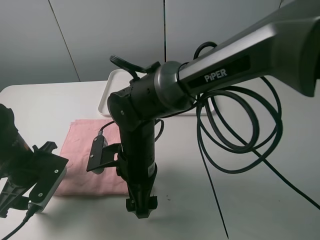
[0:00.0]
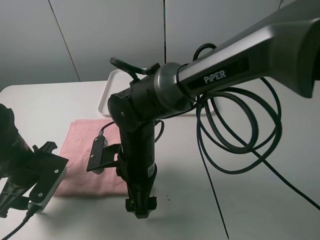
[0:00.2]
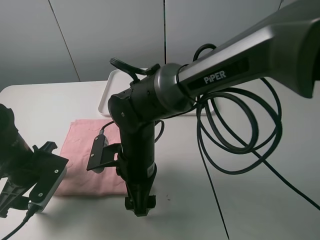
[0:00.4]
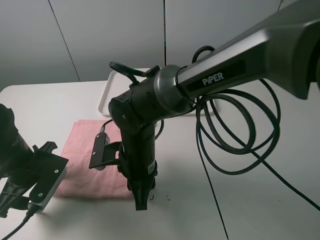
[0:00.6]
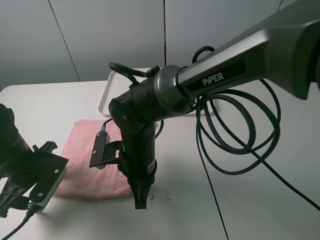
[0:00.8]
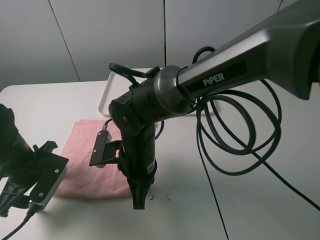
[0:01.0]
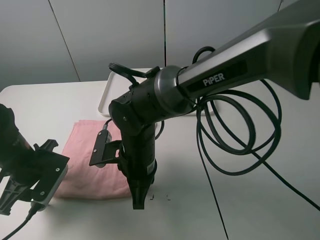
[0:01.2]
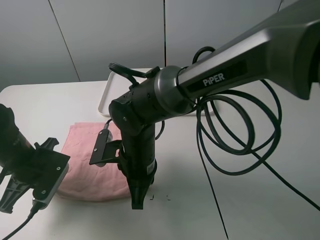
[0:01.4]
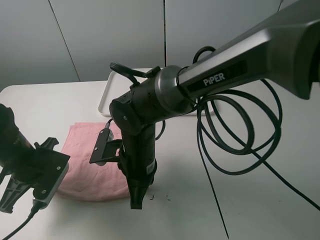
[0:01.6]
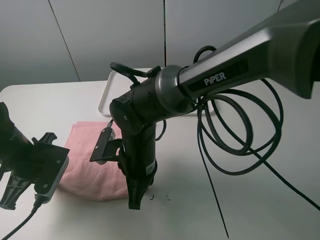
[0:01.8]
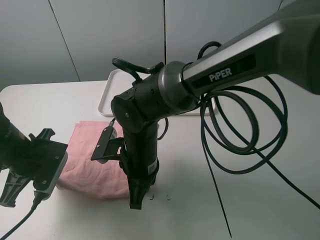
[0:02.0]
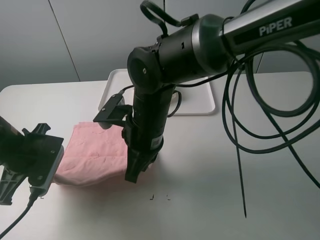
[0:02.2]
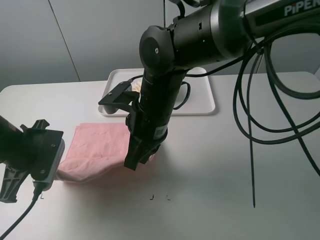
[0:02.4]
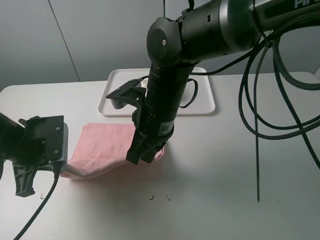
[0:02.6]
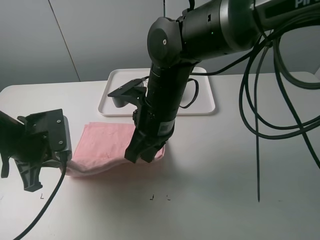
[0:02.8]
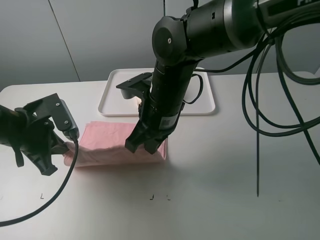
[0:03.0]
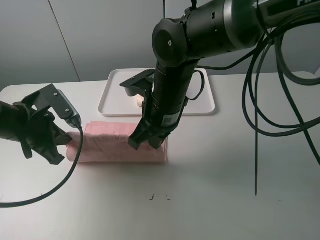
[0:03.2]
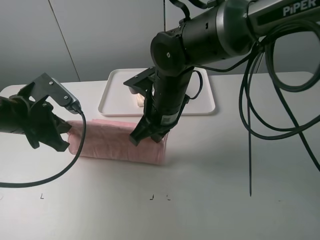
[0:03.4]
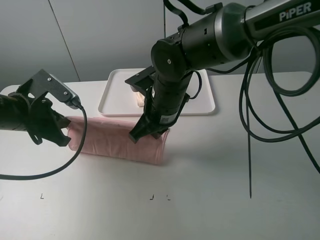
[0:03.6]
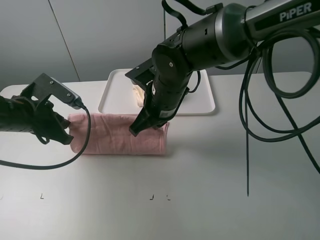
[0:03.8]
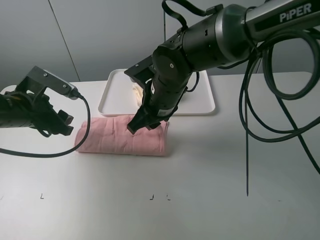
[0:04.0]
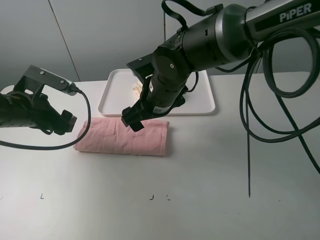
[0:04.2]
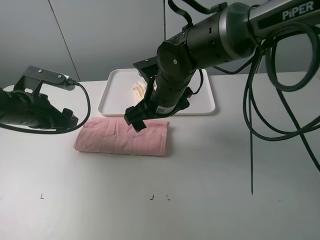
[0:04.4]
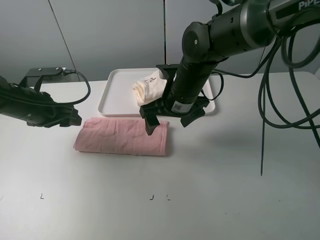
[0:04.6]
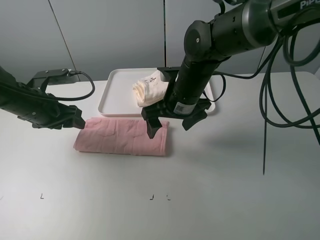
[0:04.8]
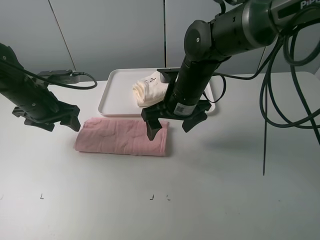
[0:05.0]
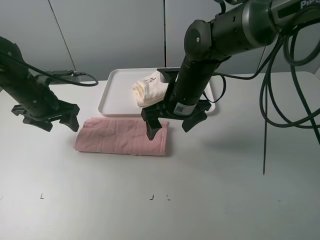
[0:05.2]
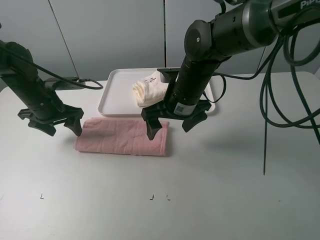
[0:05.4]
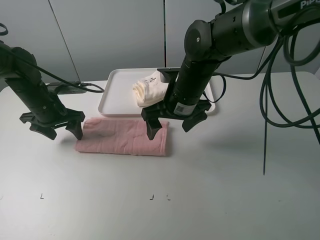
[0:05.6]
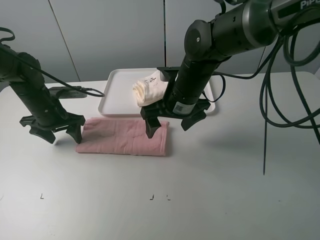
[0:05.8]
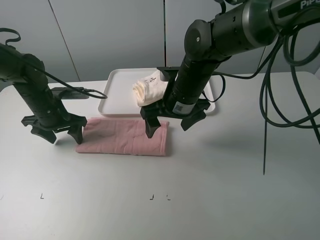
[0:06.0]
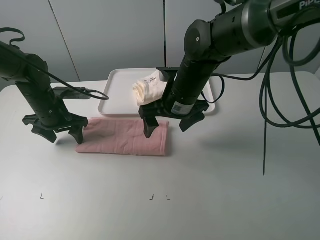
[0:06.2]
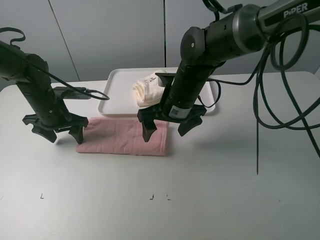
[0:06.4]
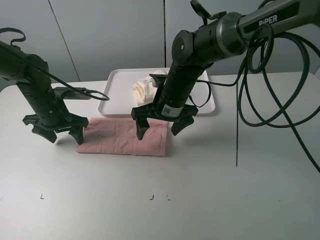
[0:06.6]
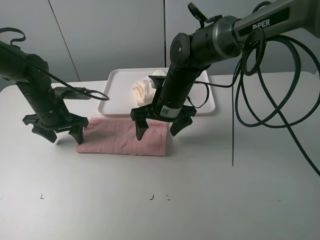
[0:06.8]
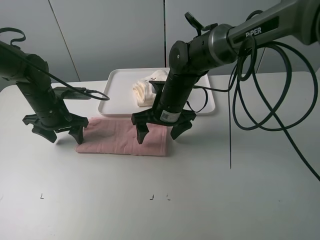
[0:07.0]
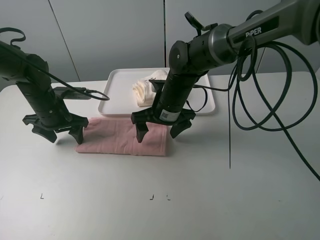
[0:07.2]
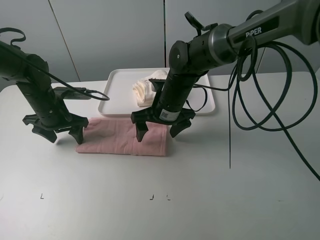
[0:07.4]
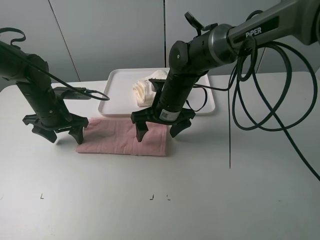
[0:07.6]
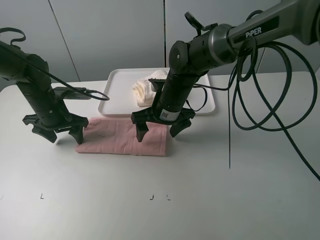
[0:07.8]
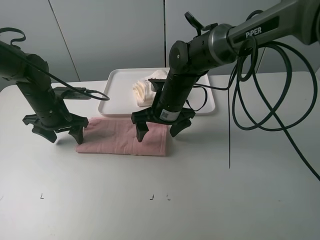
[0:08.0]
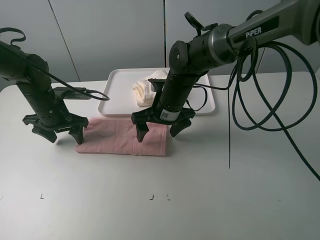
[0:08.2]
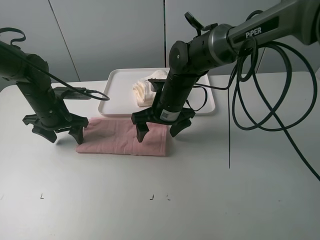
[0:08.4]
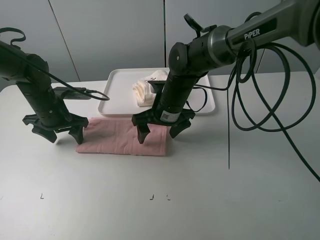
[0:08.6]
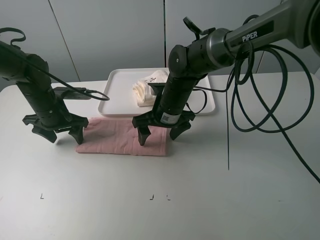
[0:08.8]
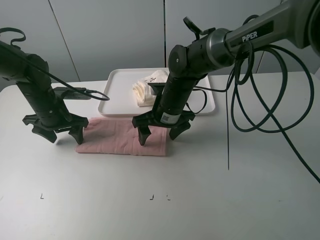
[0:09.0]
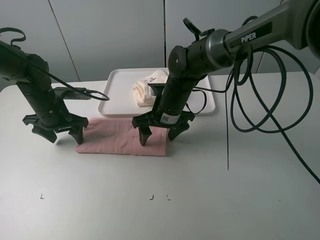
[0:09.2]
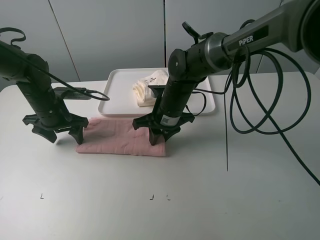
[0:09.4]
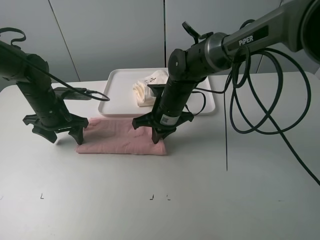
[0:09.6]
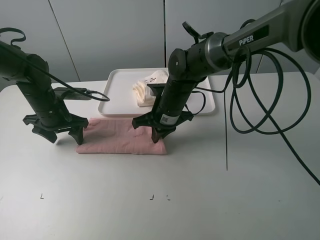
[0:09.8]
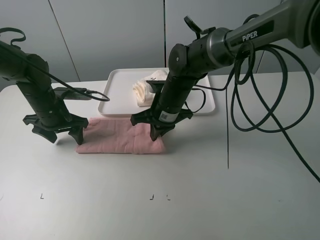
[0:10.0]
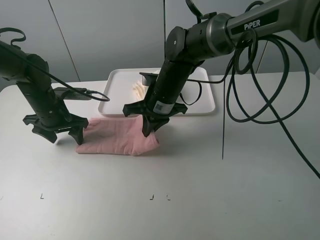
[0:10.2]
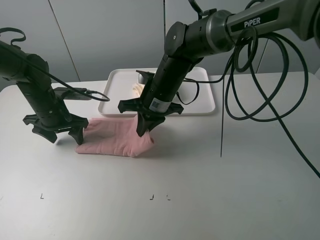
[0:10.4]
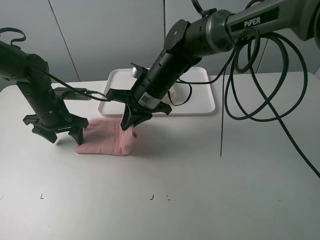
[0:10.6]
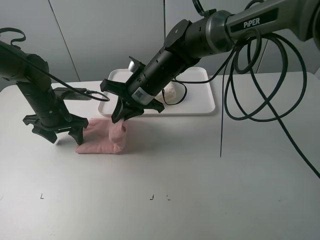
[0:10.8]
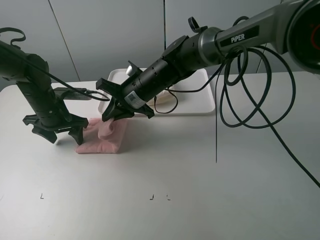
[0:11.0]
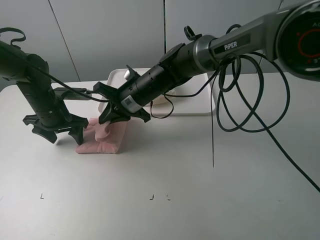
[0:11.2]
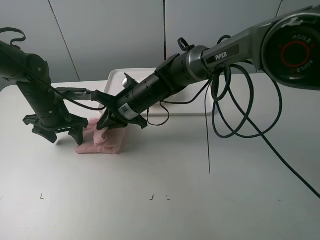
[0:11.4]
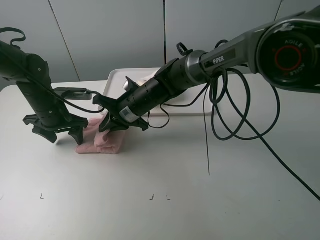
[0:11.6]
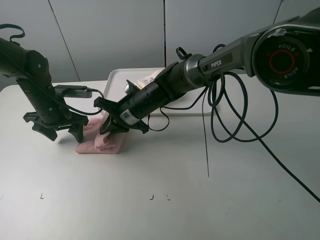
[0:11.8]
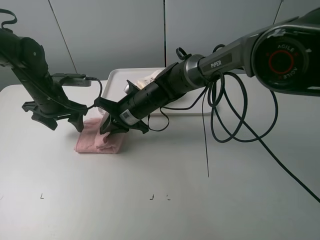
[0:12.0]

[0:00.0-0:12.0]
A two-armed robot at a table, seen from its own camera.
Task of the whole recording: fold one of the towels by two grippers and place it on the tray,then fold another towel by two grippers and place it on the folded towel.
Step, 0:01.2 to 0:04.0: Fold the pink towel upwards with the left gripper.
Step, 0:04.4 to 0:06.0: Press the pink towel with the left gripper.
Step, 0:06.2 to 0:09.6: Grasp the pink towel with the right gripper.
0:00.0 to 0:01.6: The right gripper closes its fingers; the left gripper closes up.
0:01.6 to 0:03.0: The left gripper travels upward by approximately 5 cm; the right gripper goes some 10 cm upward.
0:03.0 to 0:04.4: The right gripper shifts by some 5 cm, and opens its fingers, while the left gripper travels forward by about 5 cm, and opens its fingers.
0:04.4 to 0:06.0: The left gripper is displaced forward by some 5 cm.
0:06.0 to 0:07.6: The right gripper ends up roughly 5 cm from where it was.
0:07.6 to 0:09.0: Both grippers stay put.
0:09.0 to 0:10.4: The right gripper closes.
0:10.4 to 0:12.0: The right gripper travels downward by approximately 5 cm.

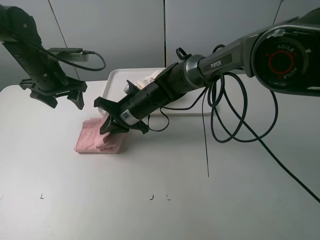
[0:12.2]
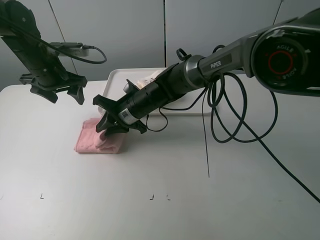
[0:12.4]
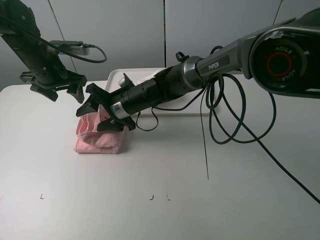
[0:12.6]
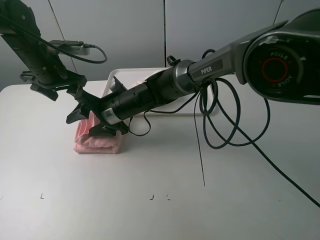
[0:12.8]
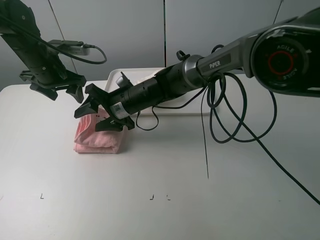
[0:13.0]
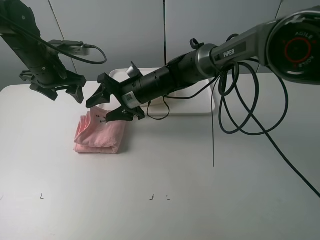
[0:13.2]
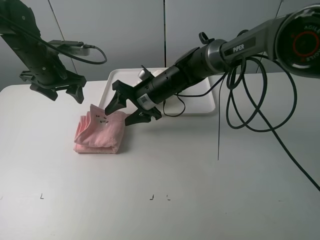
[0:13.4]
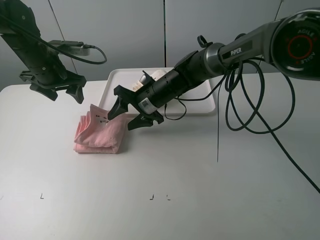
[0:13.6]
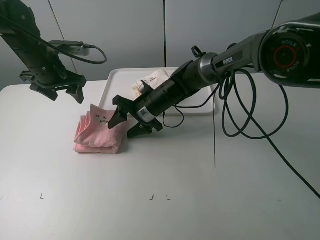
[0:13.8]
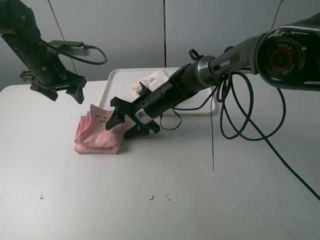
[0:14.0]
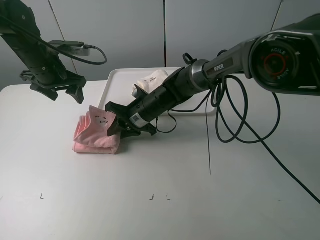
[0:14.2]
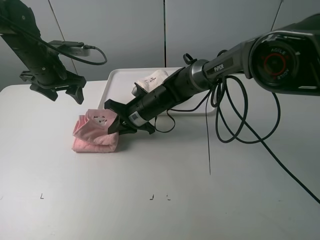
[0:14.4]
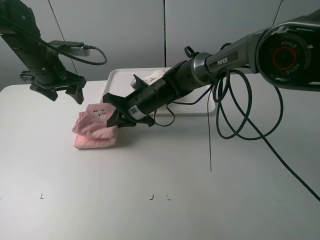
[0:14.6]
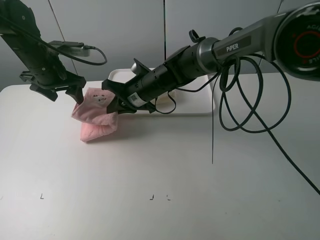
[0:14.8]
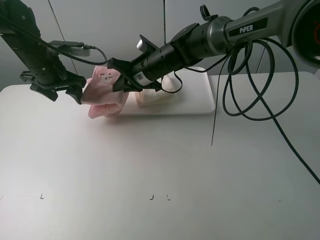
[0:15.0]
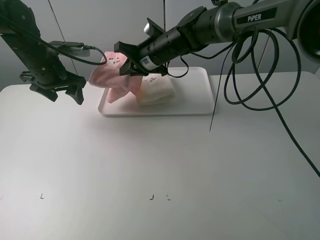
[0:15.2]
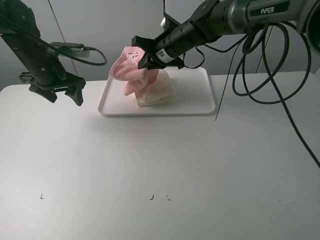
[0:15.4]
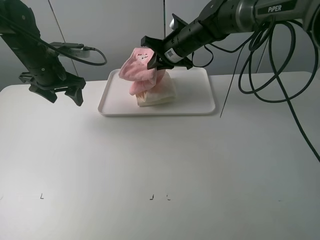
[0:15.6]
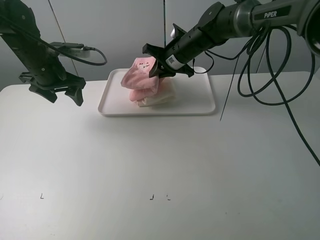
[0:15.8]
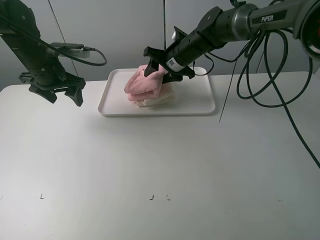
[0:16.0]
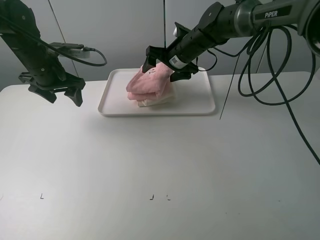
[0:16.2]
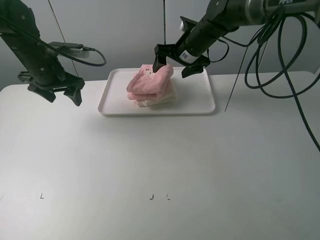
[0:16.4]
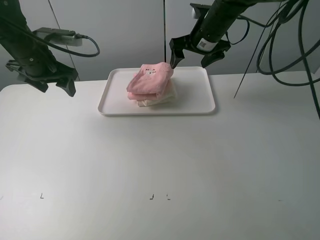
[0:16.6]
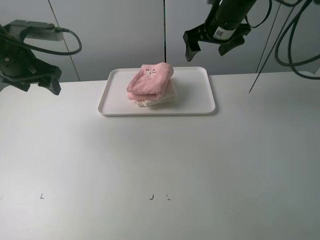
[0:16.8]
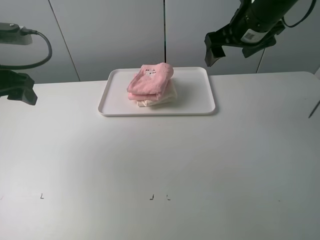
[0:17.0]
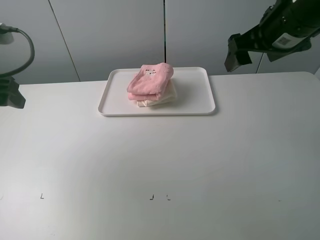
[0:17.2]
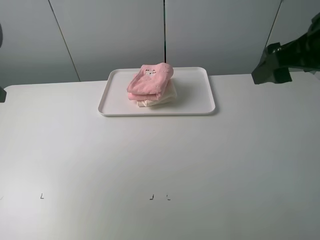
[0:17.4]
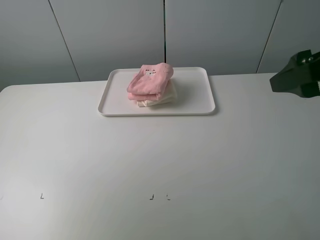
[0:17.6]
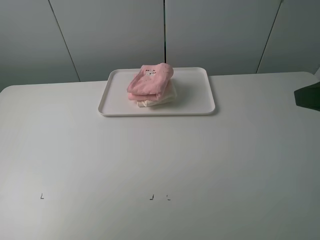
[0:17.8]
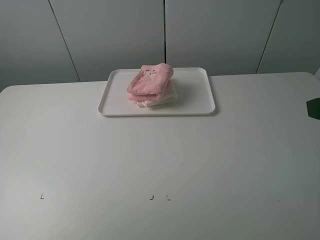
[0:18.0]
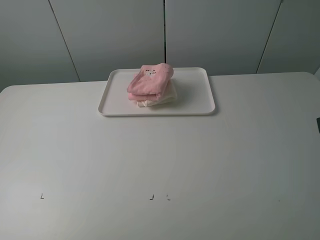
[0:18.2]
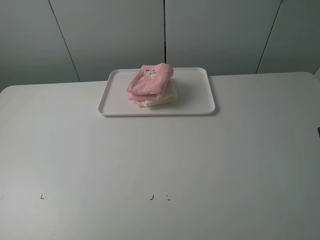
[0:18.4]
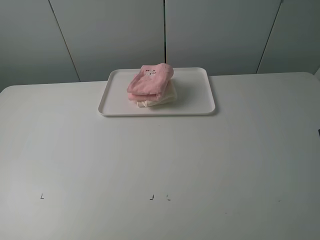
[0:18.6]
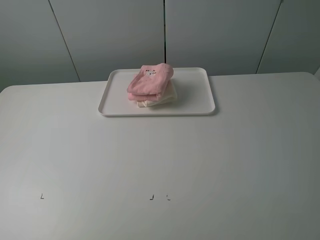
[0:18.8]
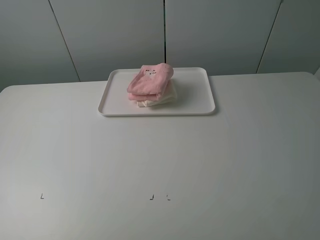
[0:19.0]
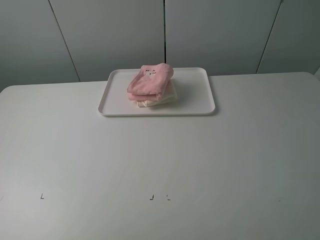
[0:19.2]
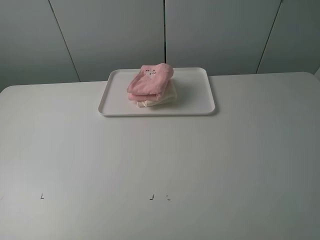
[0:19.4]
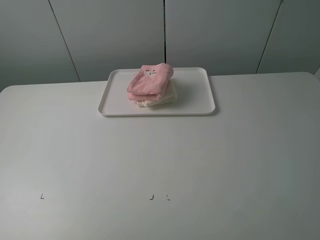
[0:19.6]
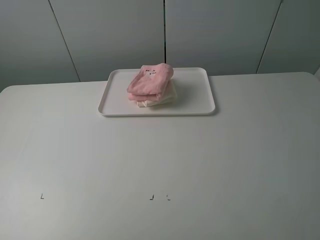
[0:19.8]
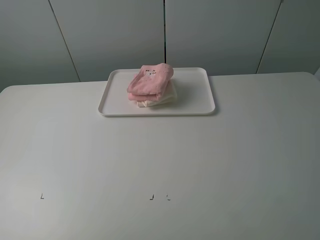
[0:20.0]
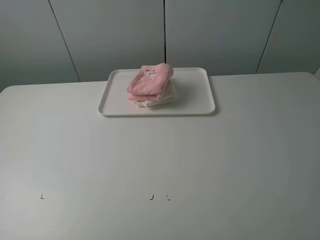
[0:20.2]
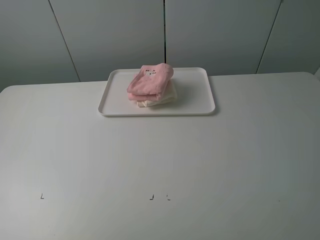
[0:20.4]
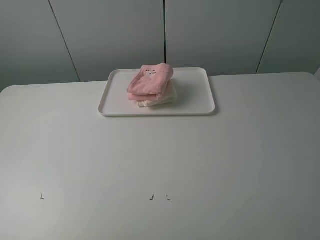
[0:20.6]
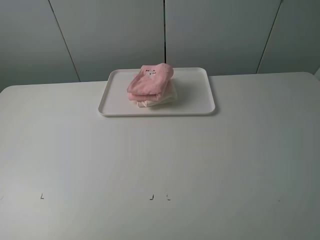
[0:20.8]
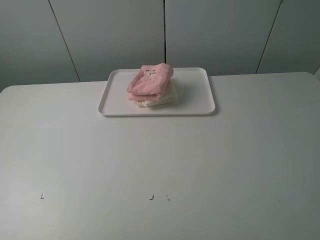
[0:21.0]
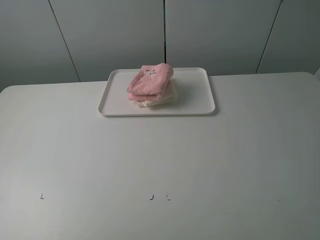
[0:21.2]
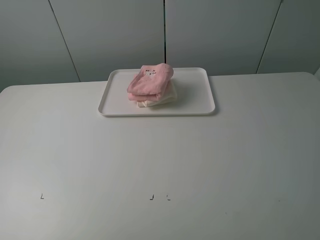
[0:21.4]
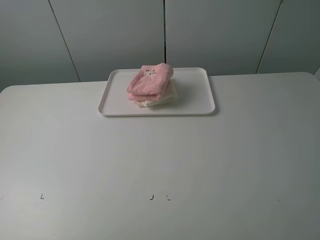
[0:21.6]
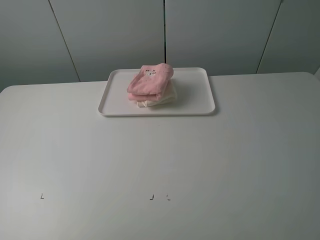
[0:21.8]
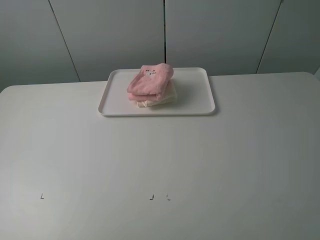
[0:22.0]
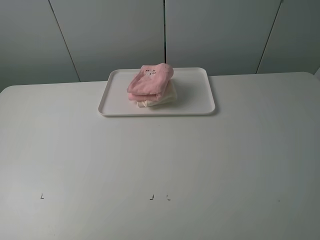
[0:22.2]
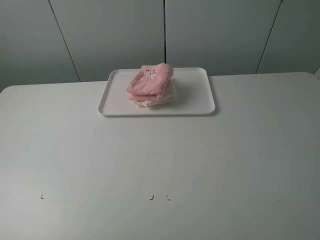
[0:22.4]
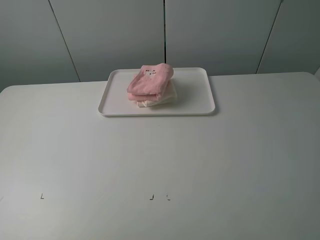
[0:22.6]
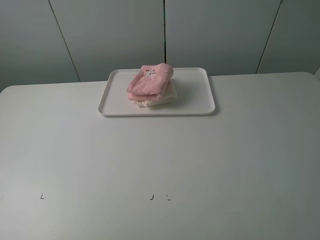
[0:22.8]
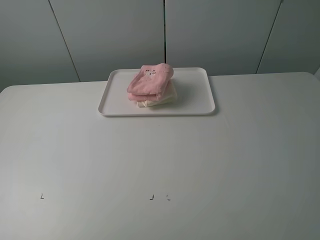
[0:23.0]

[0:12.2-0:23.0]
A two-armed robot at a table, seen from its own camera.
Task of the whole recording: fold one of the towels by two grippers and place it on the tray,then fold another towel by two grippers and place it on the folded towel.
Step, 0:13.0 to 0:14.2: Grasp the pink towel with the right gripper.
Step, 0:14.4 to 0:16.4: Place the pink towel on the white towel with the right gripper.
0:12.2 to 0:13.8: The right gripper opens up.
0:13.8 to 0:15.2: The right gripper is displaced upward and forward by some 15 cm, and closes.
0:15.2 to 0:16.8: The left gripper is displaced backward and upward by roughly 10 cm; the right gripper travels to the right and upward by some 15 cm, and opens its fingers.
0:16.8 to 0:18.4: The two grippers go roughly 35 cm backward.
0:21.4 to 0:23.0: Both grippers stay put.
